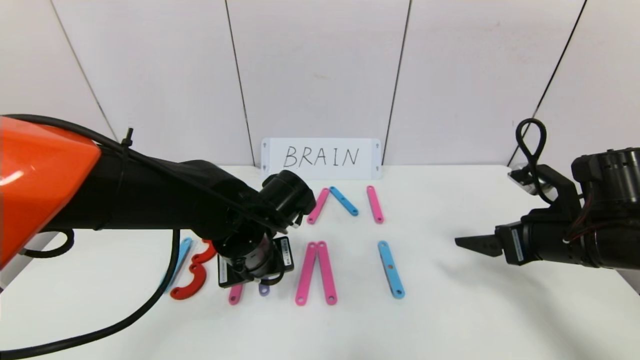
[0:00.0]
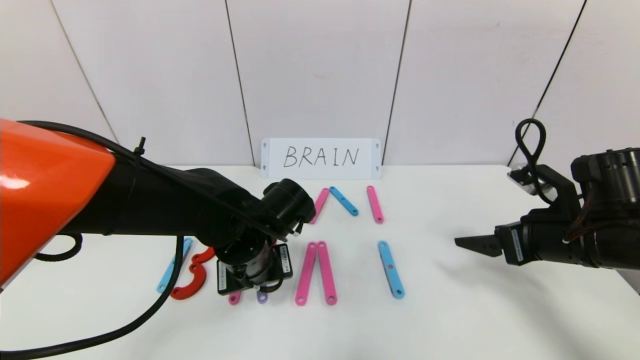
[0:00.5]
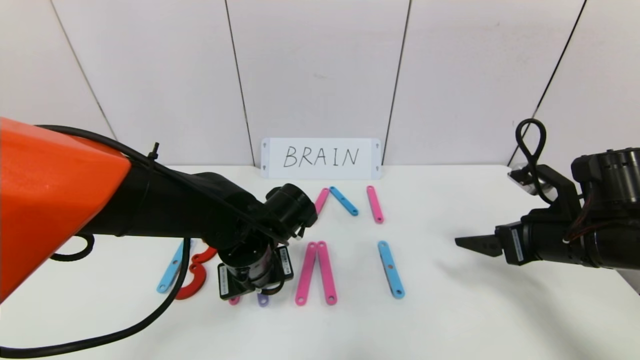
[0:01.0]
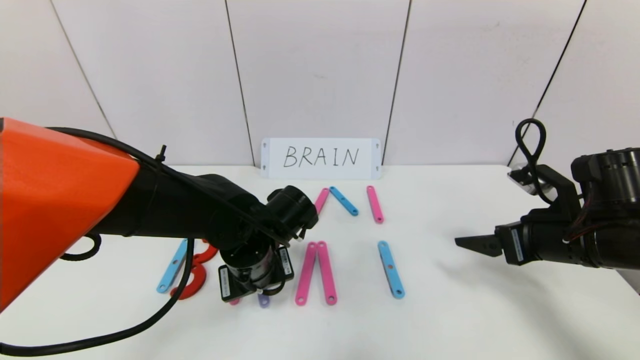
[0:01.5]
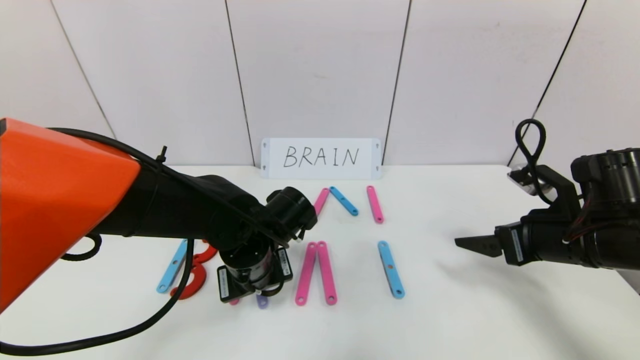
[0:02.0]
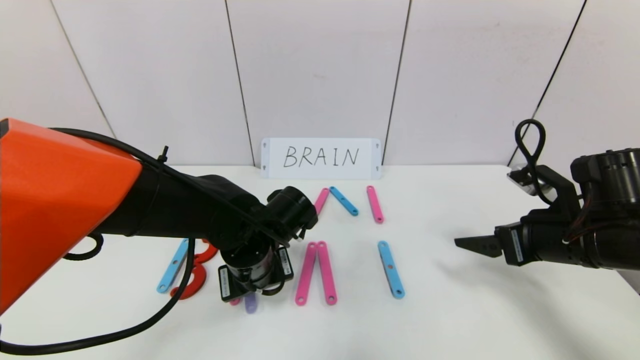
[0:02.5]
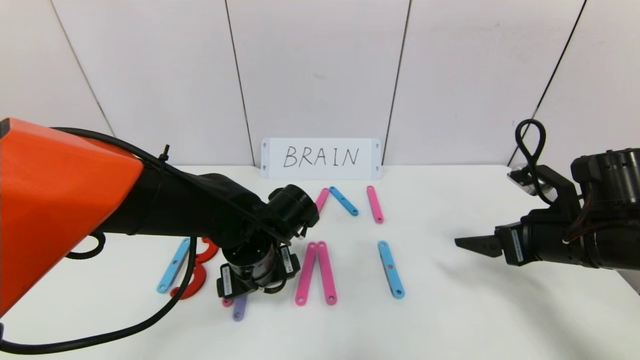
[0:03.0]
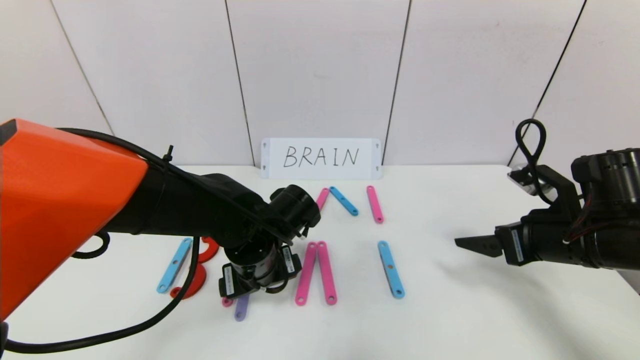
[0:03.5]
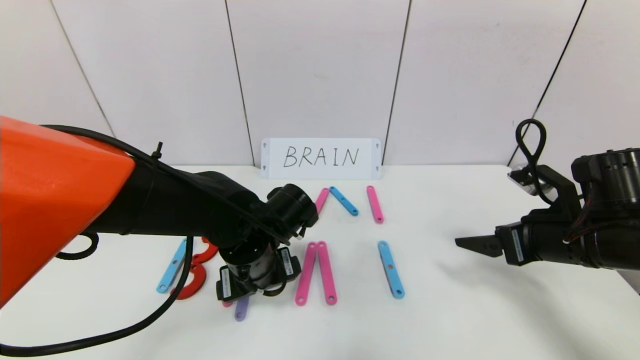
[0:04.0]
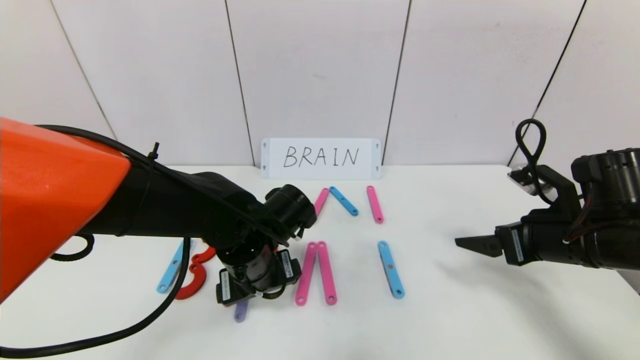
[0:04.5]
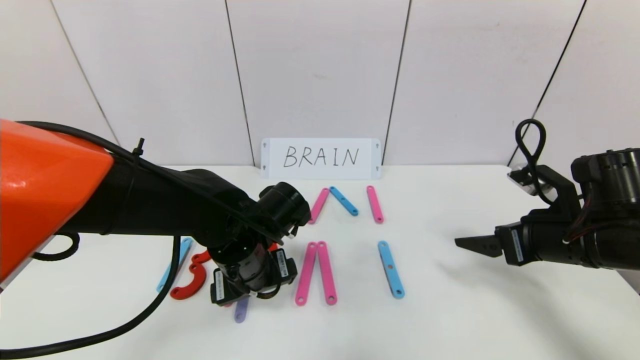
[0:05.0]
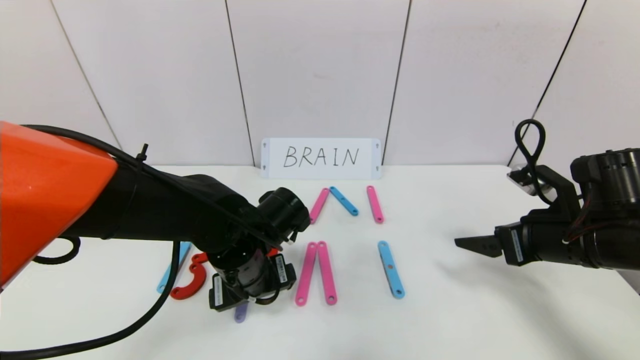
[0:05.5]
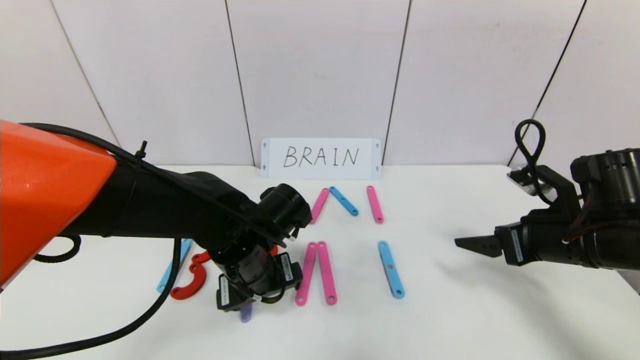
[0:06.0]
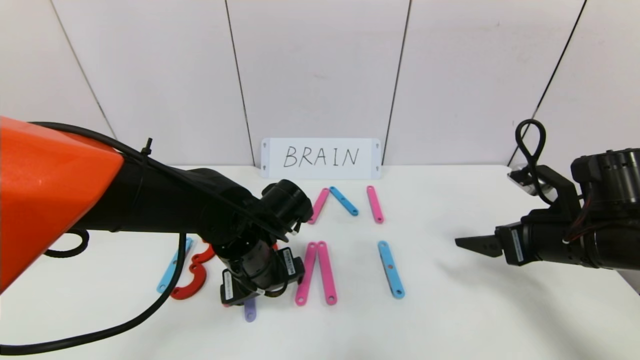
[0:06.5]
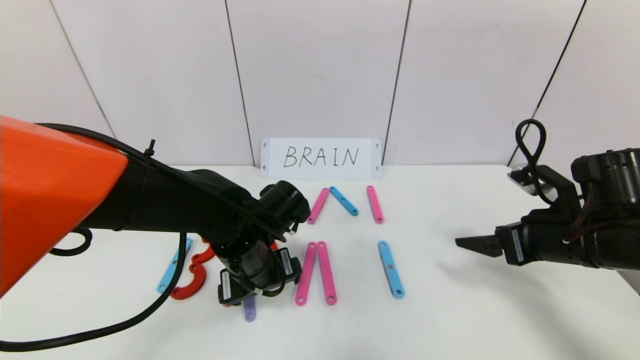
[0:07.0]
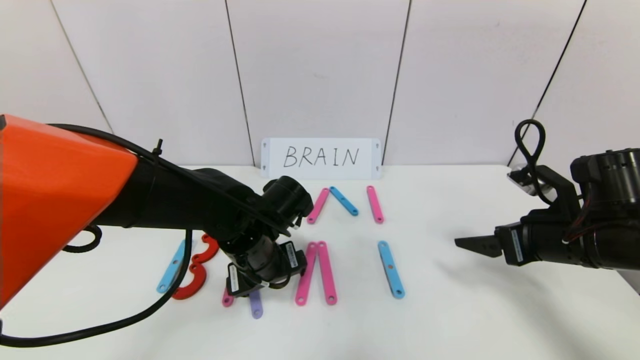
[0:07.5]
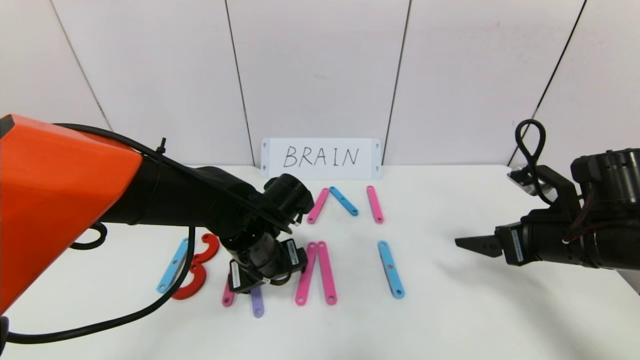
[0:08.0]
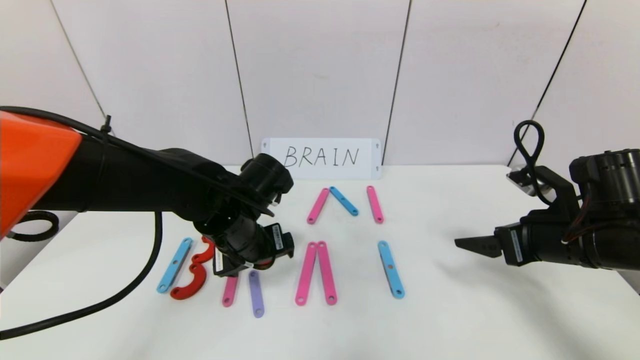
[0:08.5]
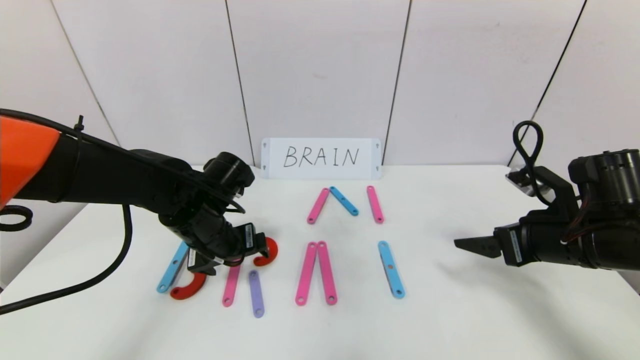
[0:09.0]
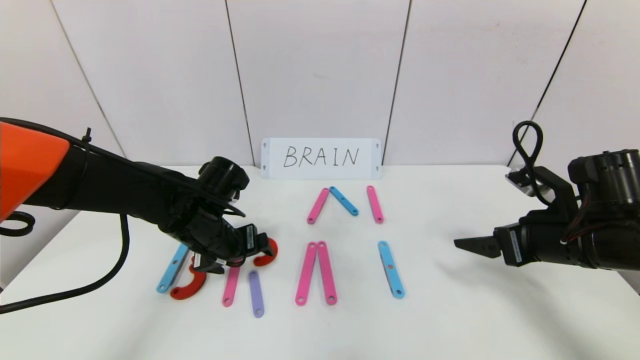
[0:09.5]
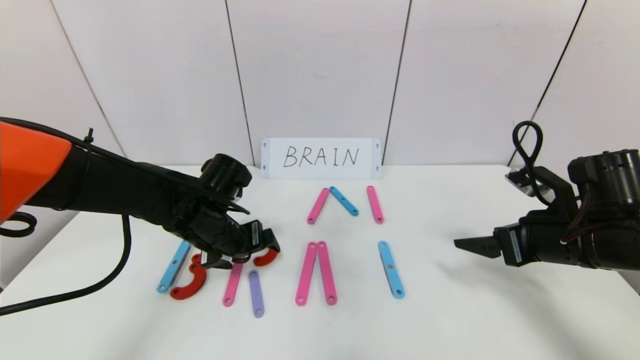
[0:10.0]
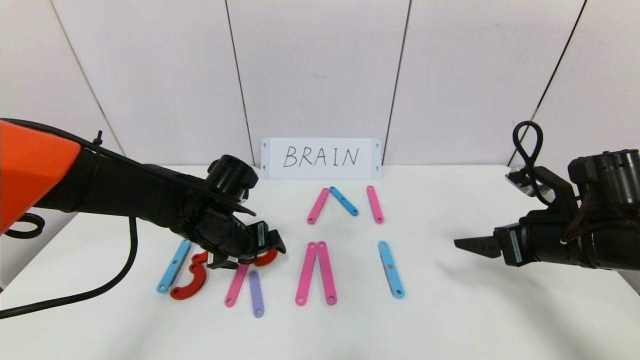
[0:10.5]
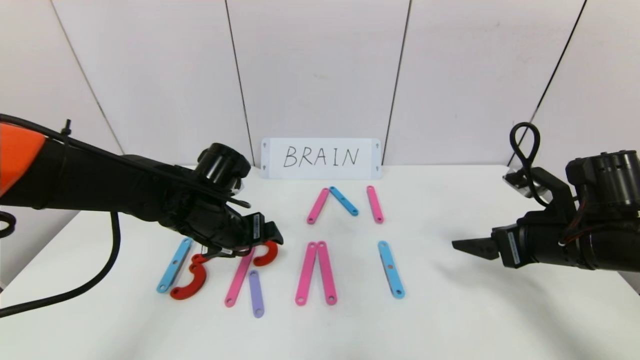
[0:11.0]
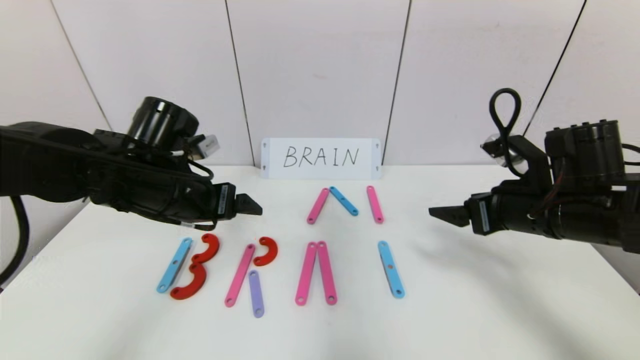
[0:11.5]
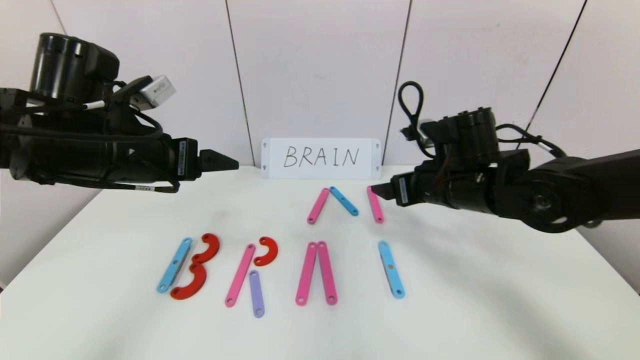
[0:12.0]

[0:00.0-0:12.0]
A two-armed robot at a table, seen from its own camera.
Task of the whole recording: rearrange the word baai as brain.
Step, 0:00.0 to 0:11.0: Place the character R between first character B and third character A.
0:00.0 to 0:02.0: The grippers stay close to where they were, moving slightly.
0:02.0 to 0:04.0: The left gripper opens.
0:04.0 to 0:08.0: The grippers make only small movements.
0:08.0 to 0:10.0: The left gripper goes some 5 cm to the left.
0:10.0 to 0:12.0: The right gripper goes roughly 15 cm to the left and forward. Meanwhile the left gripper moves upward and to the left, approximately 15 cm.

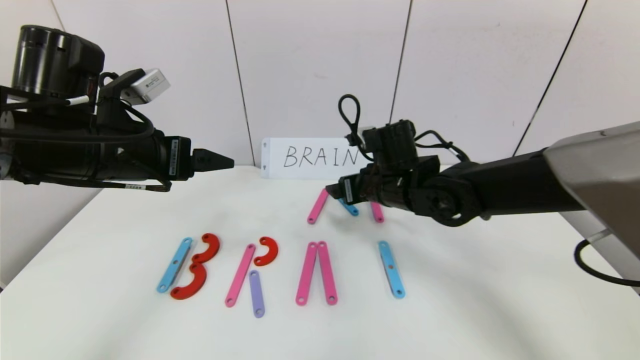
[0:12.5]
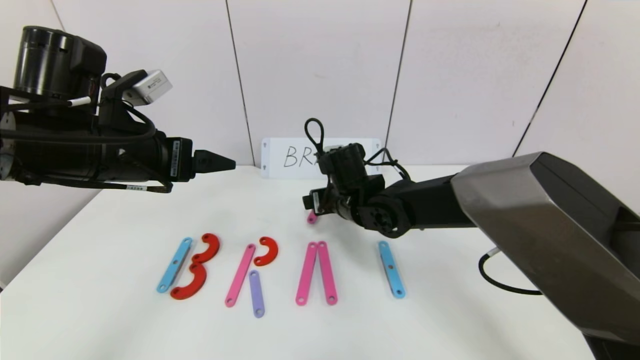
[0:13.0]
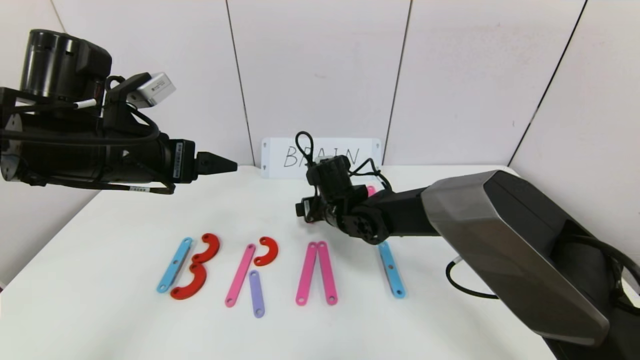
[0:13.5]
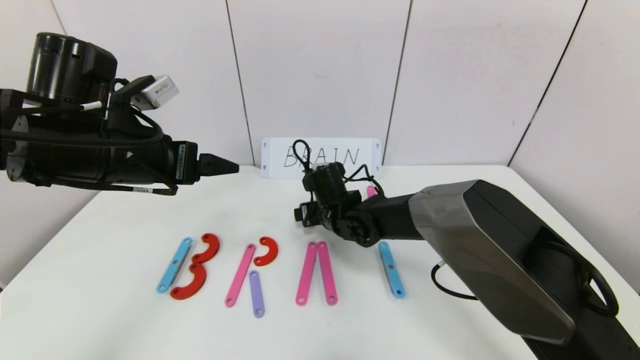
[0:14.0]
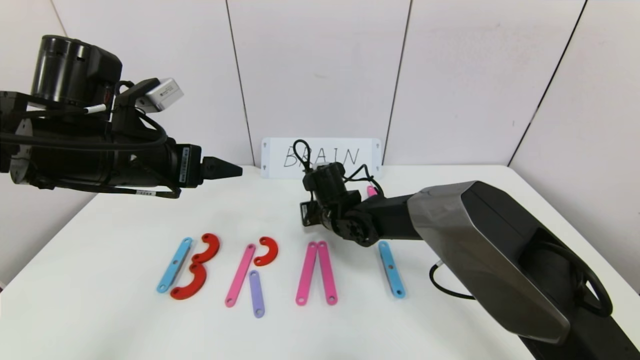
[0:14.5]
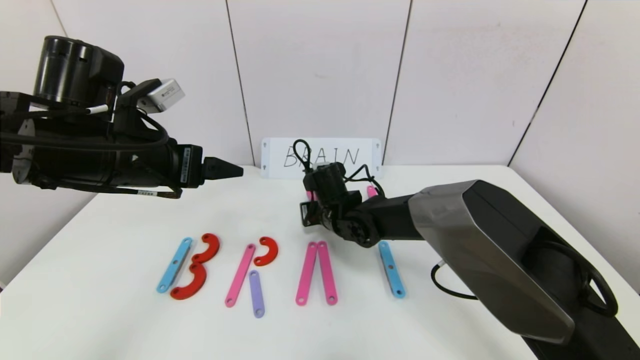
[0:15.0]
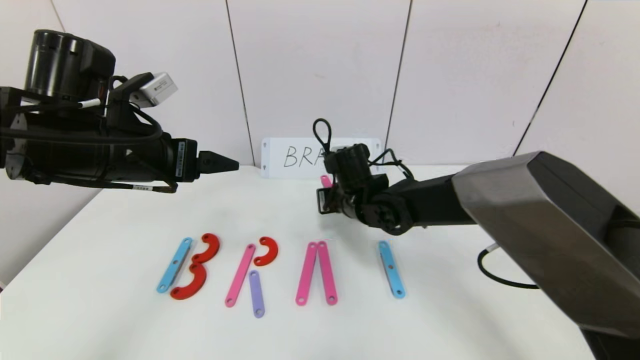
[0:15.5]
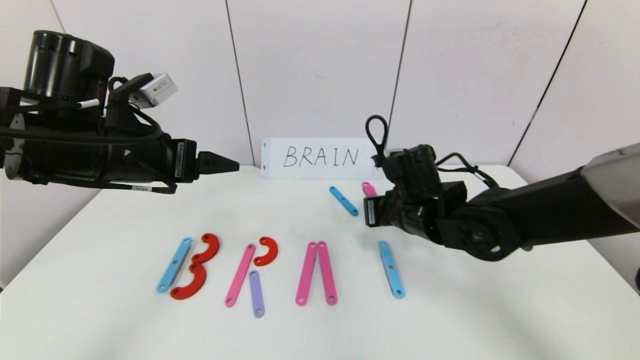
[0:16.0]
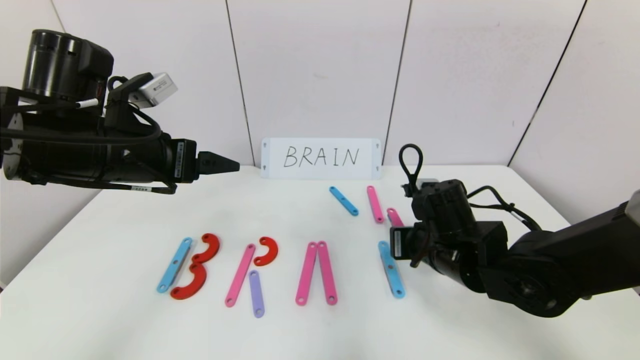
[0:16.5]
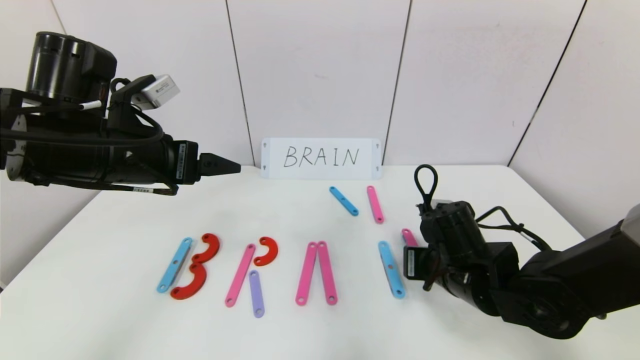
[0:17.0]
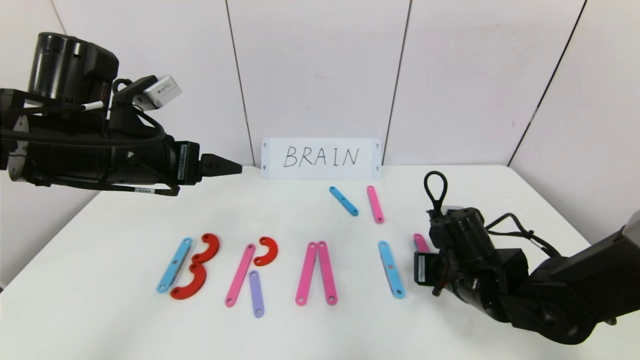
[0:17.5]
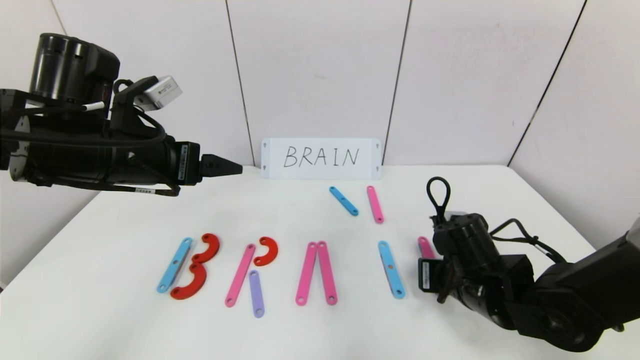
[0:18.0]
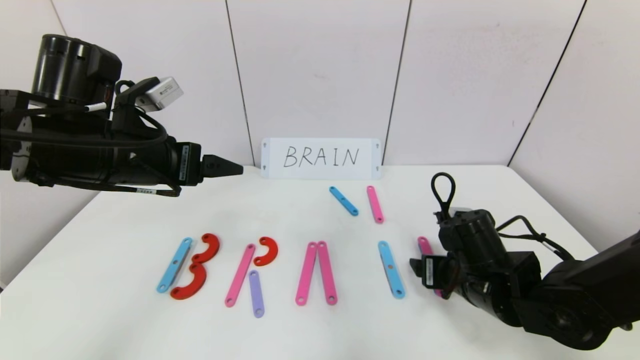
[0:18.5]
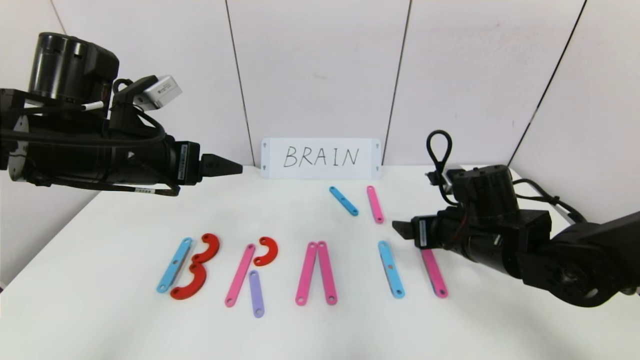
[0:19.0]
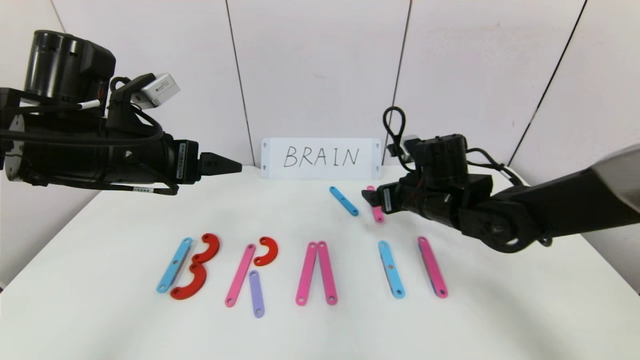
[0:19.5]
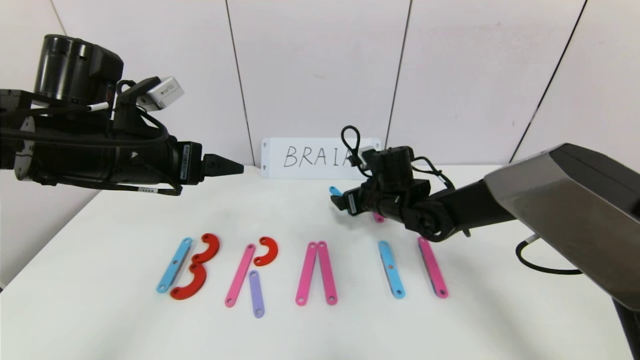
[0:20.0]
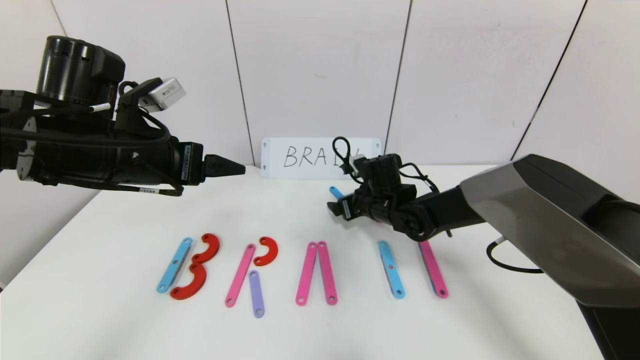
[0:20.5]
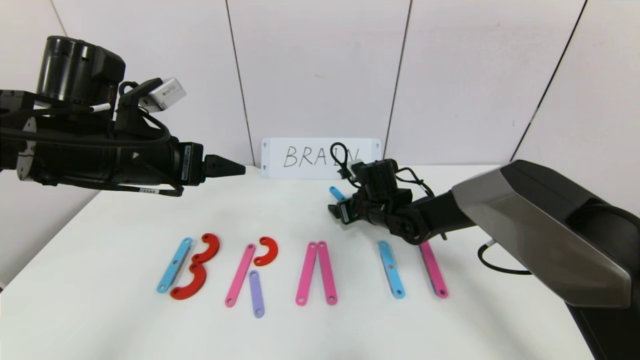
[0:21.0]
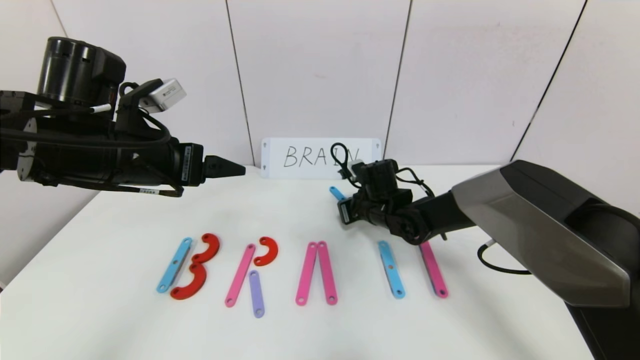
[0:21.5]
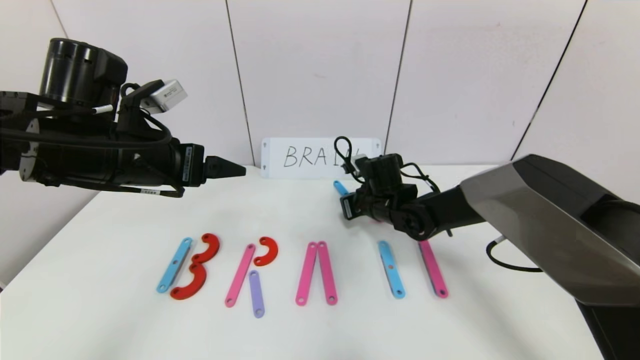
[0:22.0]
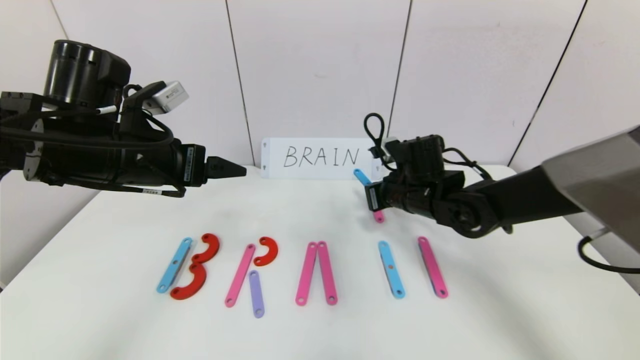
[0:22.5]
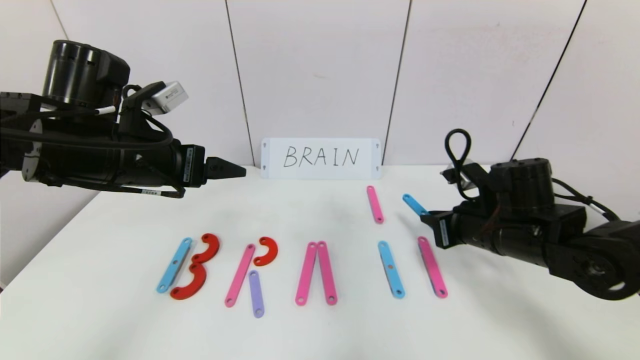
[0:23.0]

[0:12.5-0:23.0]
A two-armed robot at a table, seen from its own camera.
Task of the whole recording: rearrange the word baai as brain.
0:12.5 to 0:14.5: The right gripper moves downward and to the left, approximately 10 cm, and closes its fingers.
0:14.5 to 0:16.5: The right gripper heads to the right and backward, covering some 20 cm.
0:16.5 to 0:19.0: The right gripper opens up.
0:19.0 to 0:21.0: The right gripper is displaced forward, to the left and downward by approximately 20 cm.
0:21.0 to 0:23.0: The right gripper travels to the right, backward and upward by some 20 cm, and closes.
